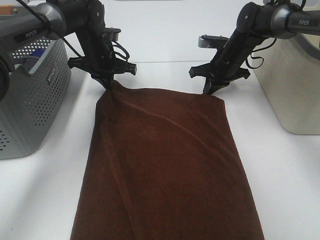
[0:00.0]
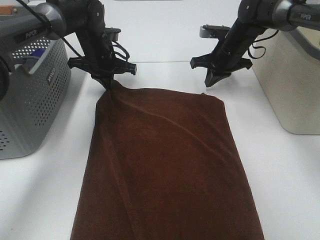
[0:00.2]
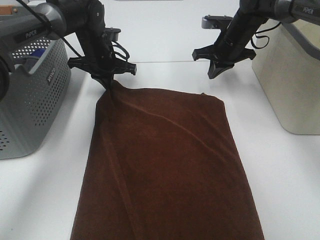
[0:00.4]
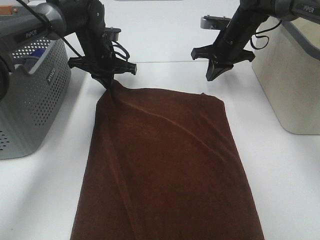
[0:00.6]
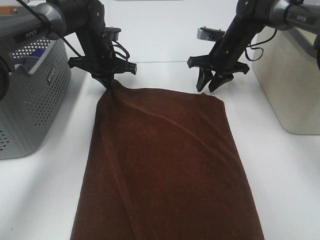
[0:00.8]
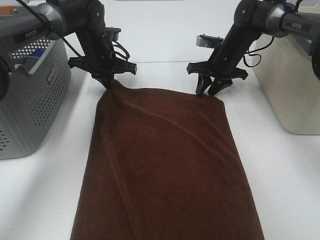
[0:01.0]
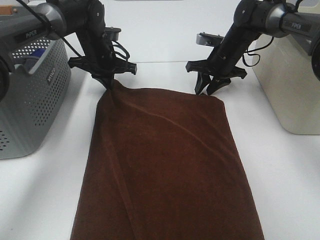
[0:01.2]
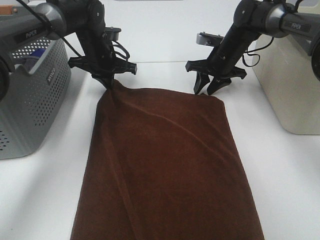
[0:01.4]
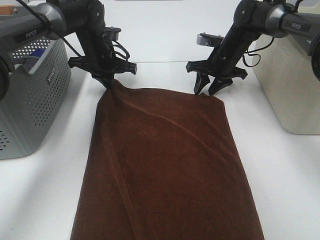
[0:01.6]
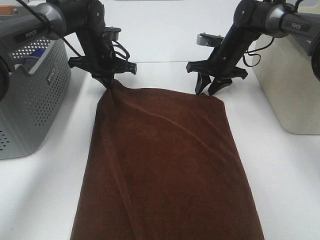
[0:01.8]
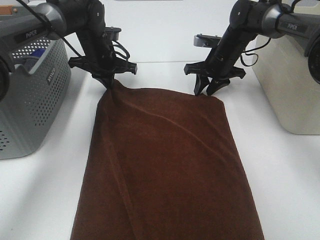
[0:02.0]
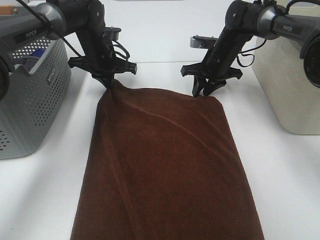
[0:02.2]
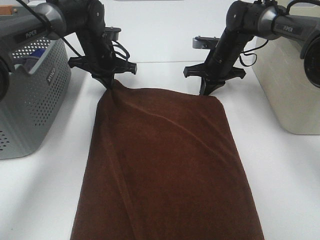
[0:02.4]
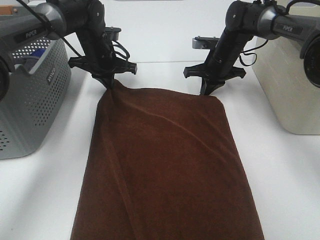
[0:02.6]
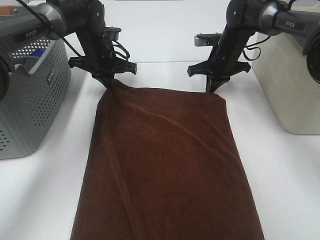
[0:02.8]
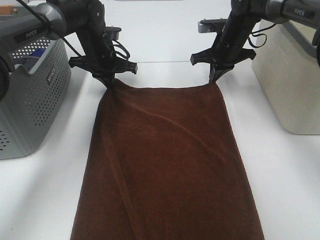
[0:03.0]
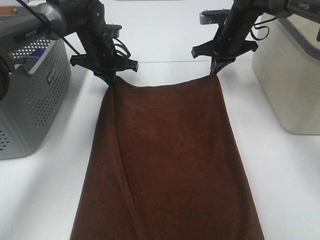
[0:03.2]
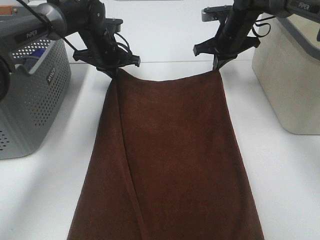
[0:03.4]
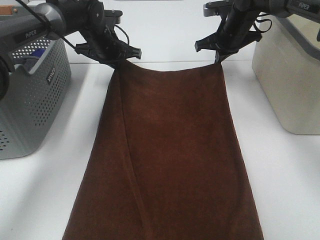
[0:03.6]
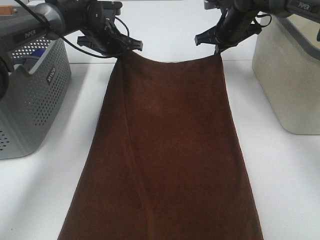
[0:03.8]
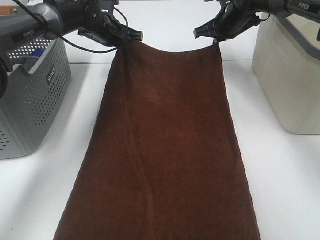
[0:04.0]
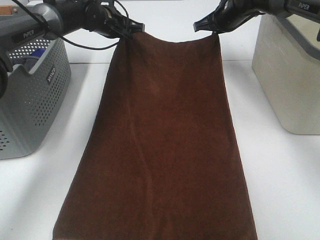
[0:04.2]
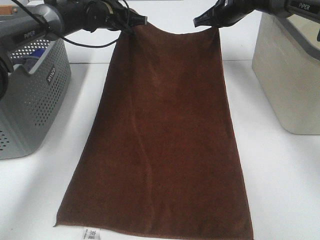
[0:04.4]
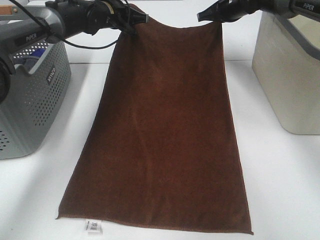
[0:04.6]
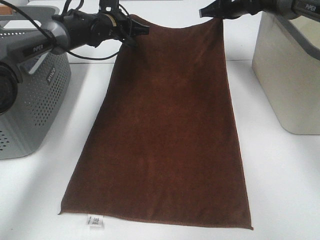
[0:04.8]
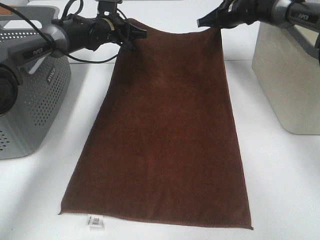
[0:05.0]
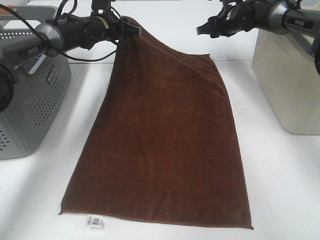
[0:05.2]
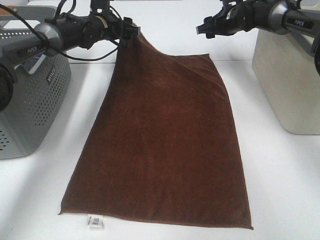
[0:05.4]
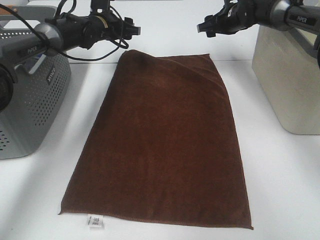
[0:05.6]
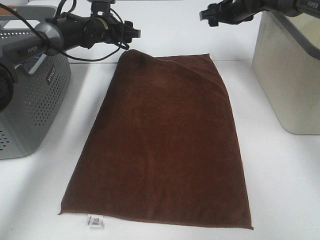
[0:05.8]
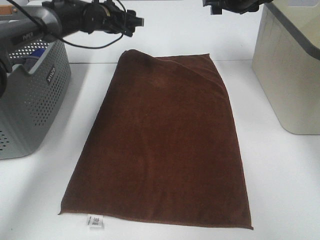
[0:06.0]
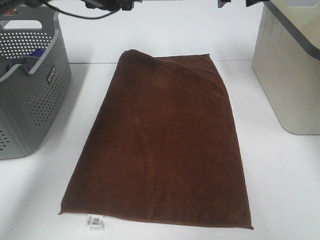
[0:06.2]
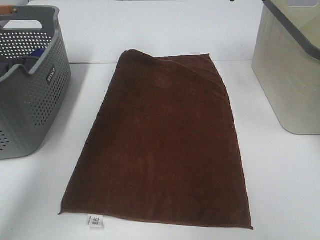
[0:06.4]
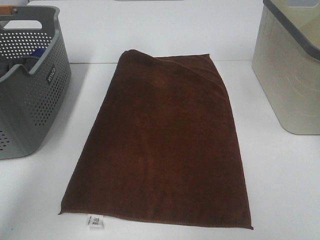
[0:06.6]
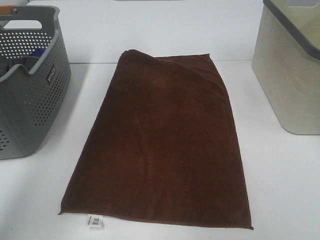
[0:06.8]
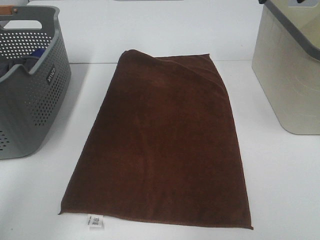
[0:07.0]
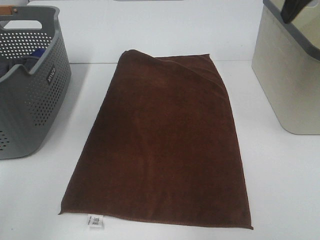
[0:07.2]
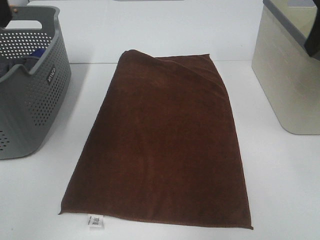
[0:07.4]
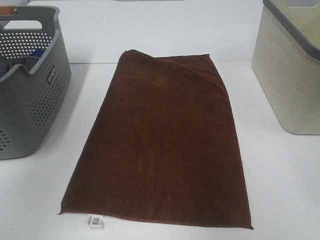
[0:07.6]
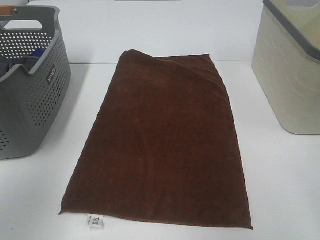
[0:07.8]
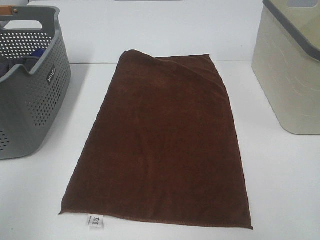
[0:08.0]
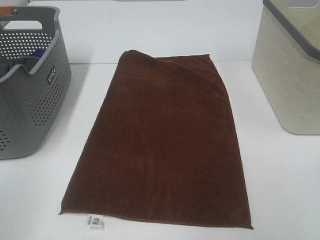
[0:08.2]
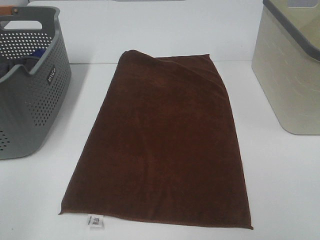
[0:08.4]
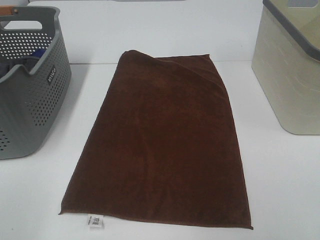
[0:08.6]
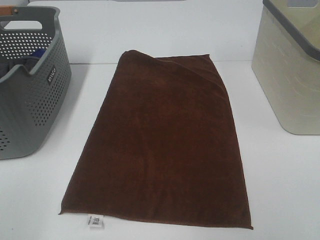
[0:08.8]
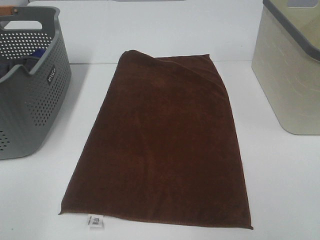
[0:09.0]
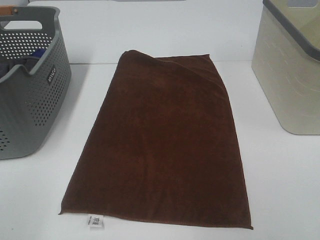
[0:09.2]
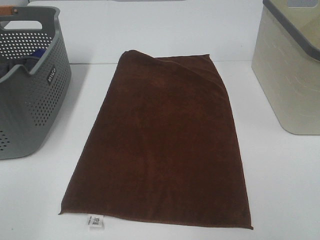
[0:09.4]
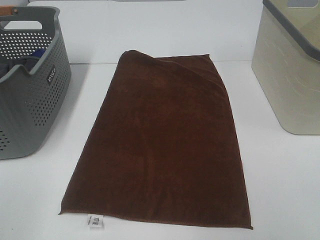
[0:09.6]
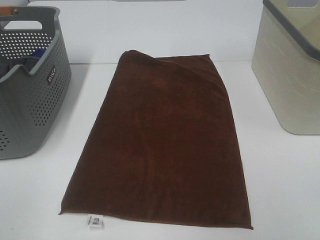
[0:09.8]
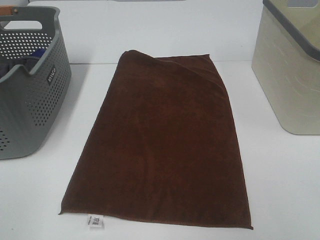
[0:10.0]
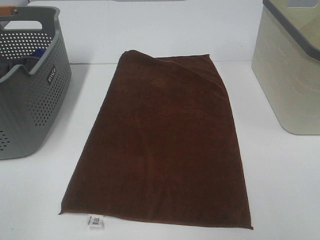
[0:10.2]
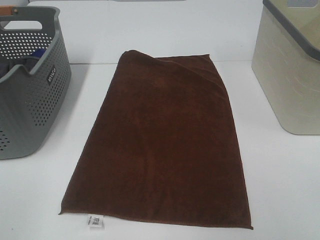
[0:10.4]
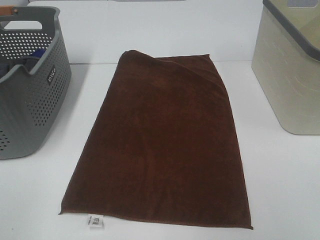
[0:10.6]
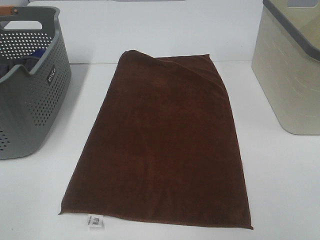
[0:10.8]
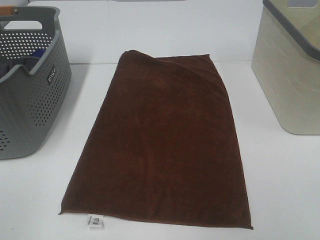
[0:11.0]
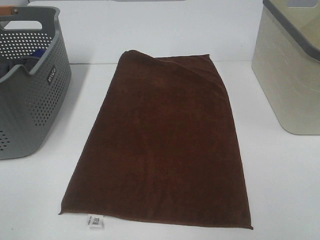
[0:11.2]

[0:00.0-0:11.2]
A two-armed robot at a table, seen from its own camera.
Task of the whole recording: Remove the towel and place it.
0:00.0 to 0:01.6: The right gripper opens its fingers.
0:01.6 to 0:03.2: The right gripper heads upward, covering approximately 5 cm, and closes up.
0:03.2 to 0:04.8: Both grippers travel together forward, some 5 cm.
0:04.8 to 0:06.4: The two grippers go roughly 15 cm upward and backward. The right gripper opens; the left gripper opens.
0:06.4 to 0:08.0: The left gripper is displaced backward by some 40 cm.

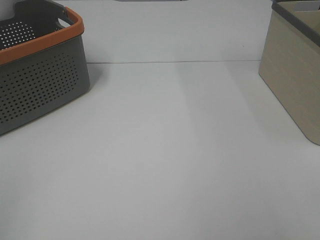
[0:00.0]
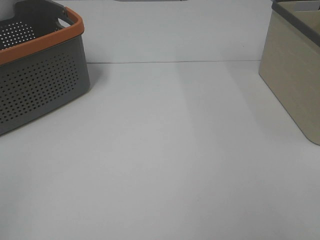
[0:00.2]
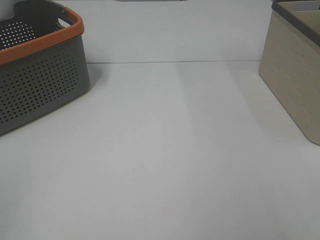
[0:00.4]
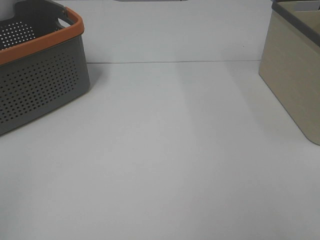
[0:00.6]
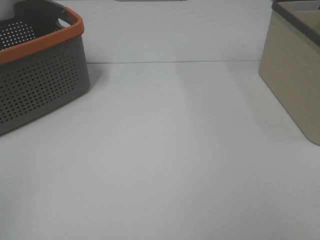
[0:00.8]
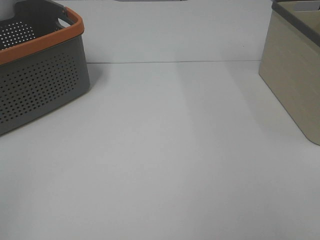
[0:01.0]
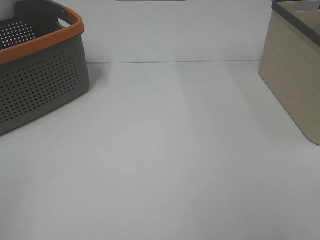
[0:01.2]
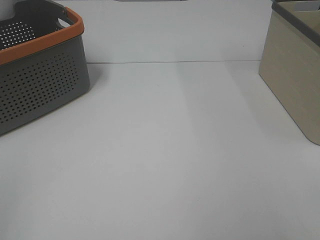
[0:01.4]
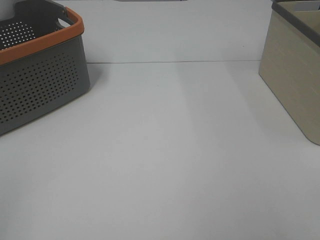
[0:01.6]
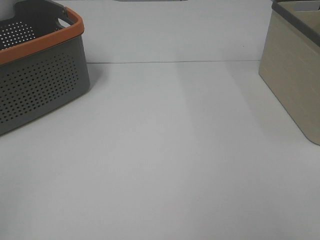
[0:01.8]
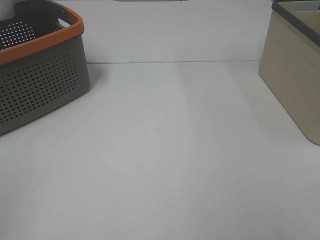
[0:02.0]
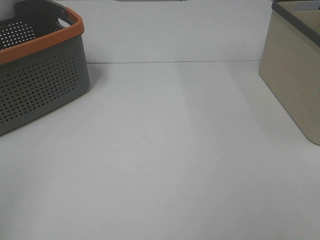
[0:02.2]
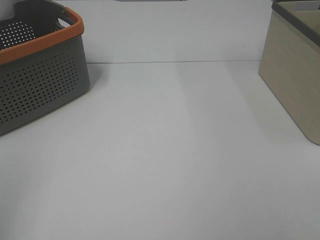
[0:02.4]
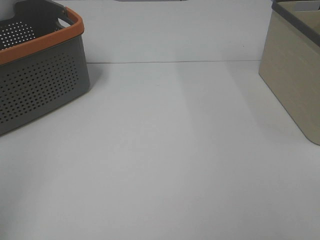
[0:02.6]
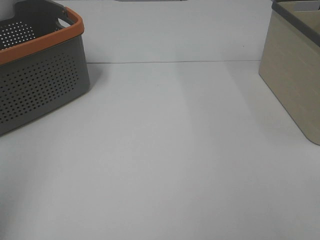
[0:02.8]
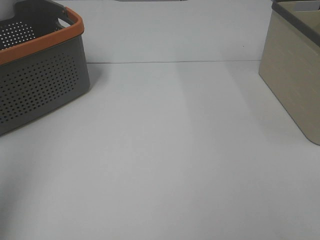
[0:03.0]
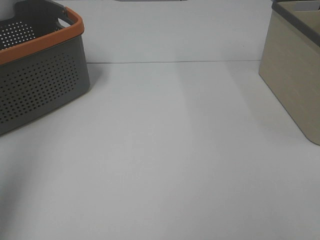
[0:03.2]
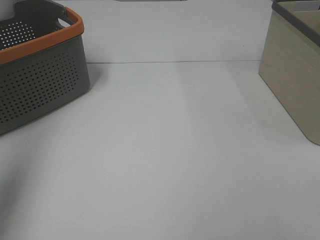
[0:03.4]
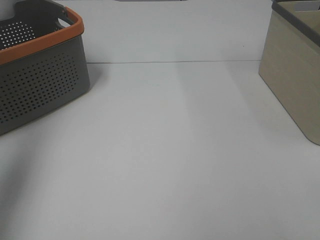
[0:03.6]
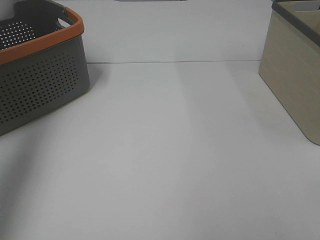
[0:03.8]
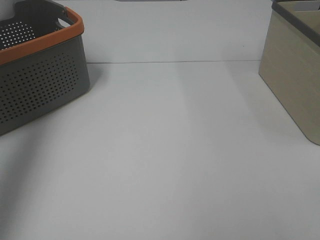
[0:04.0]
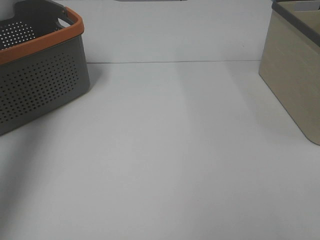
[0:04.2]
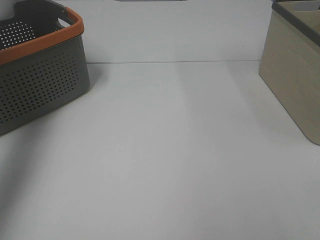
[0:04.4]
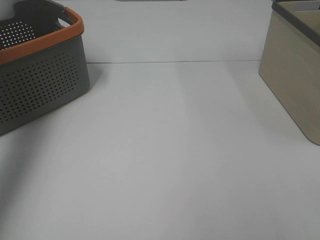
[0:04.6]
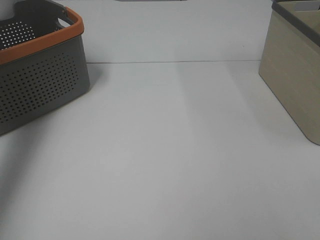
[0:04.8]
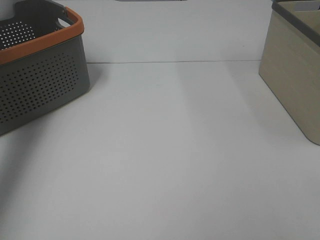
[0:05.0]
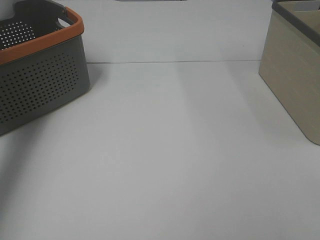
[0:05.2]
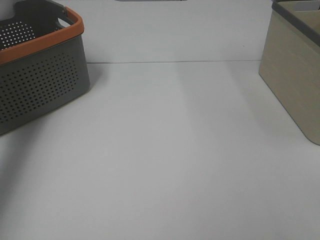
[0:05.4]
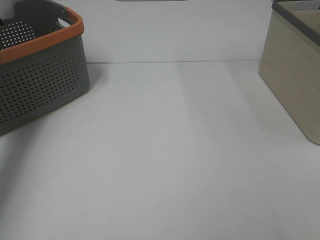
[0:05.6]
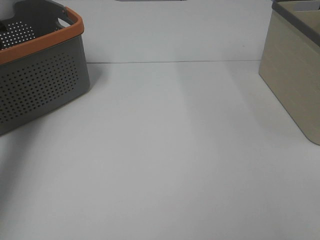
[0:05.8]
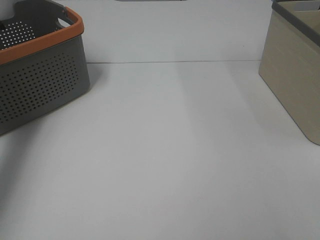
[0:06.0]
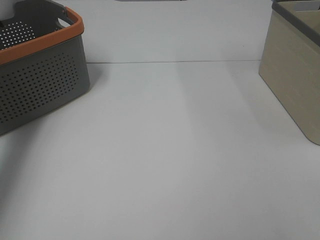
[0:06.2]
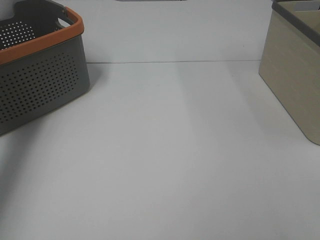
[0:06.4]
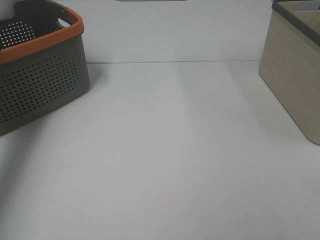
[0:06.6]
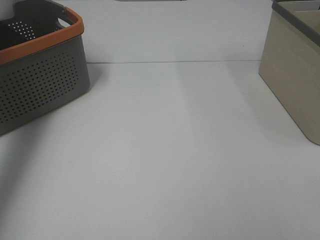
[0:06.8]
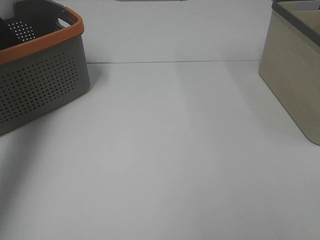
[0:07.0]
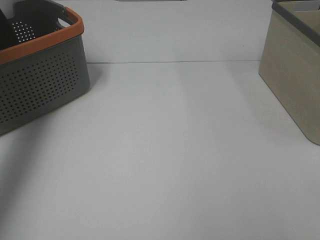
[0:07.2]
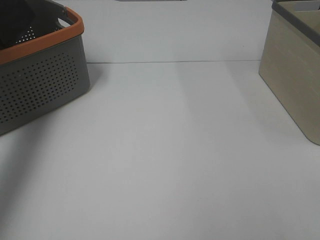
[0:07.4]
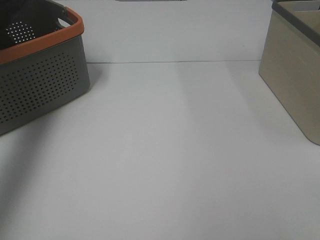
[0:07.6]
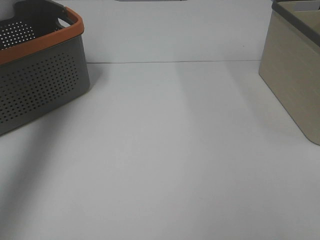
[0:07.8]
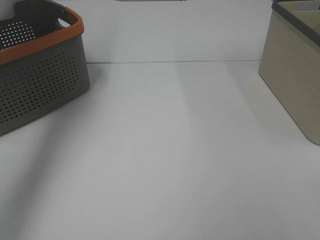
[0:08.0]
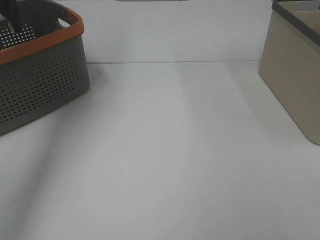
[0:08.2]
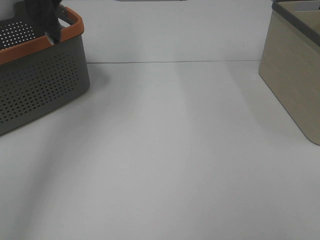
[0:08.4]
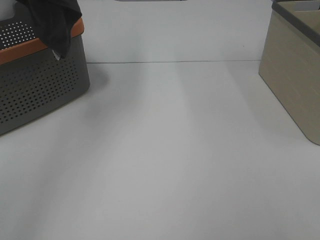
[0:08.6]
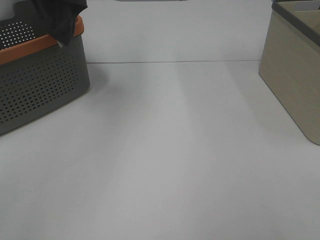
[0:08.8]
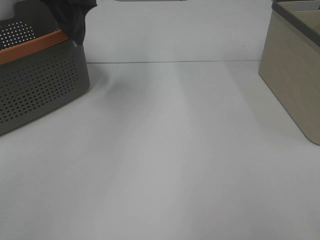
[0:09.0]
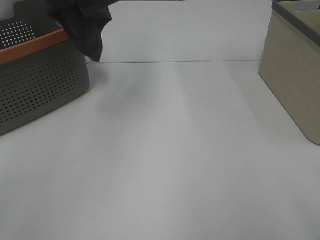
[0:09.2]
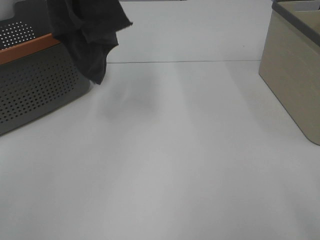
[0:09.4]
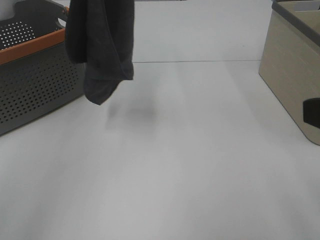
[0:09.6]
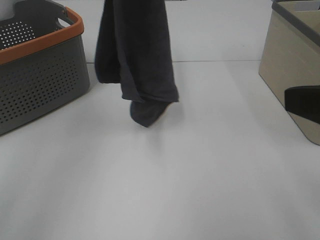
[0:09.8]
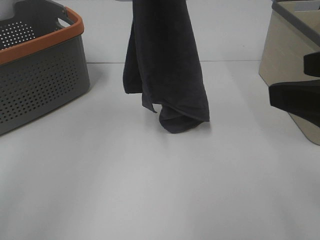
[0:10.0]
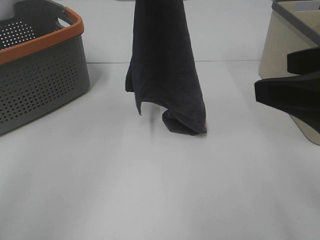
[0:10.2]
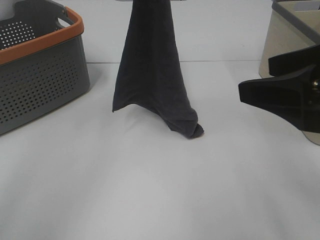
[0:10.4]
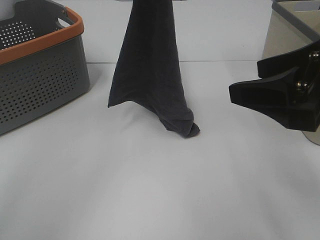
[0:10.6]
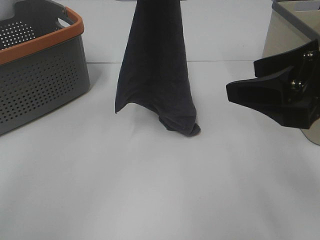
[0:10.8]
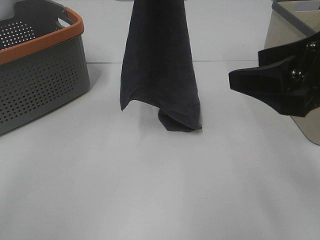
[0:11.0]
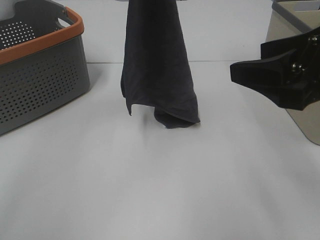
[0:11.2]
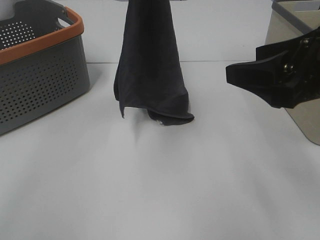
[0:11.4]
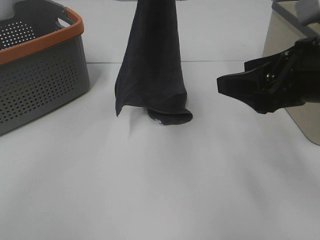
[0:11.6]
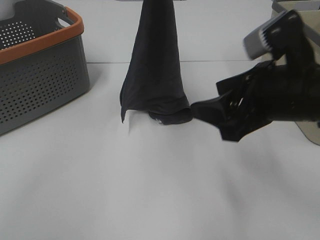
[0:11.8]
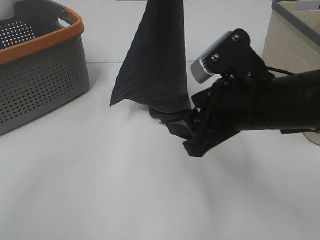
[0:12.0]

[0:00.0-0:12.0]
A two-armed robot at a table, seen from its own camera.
Task of the whole recording: Remove the towel and place it.
0:00.0 to 0:01.6: The two grippers keep their place.
0:01.6 to 0:03.0: The left gripper shifts roughly 15 cm forward and upward.
0:03.0 to 0:04.4: The left gripper is displaced forward by about 20 cm.
0:06.0 to 0:07.6: The left gripper goes approximately 30 cm upward.
0:07.6 to 0:09.0: The left gripper heads to the right, covering roughly 15 cm.
0:09.0 to 0:10.4: The right gripper moves forward and to the left, roughly 15 cm. Meanwhile the left gripper shifts roughly 15 cm downward and to the right.
0:10.4 to 0:12.0: The left gripper is displaced to the right by roughly 10 cm. The right gripper moves to the left, downward and forward, approximately 10 cm.
